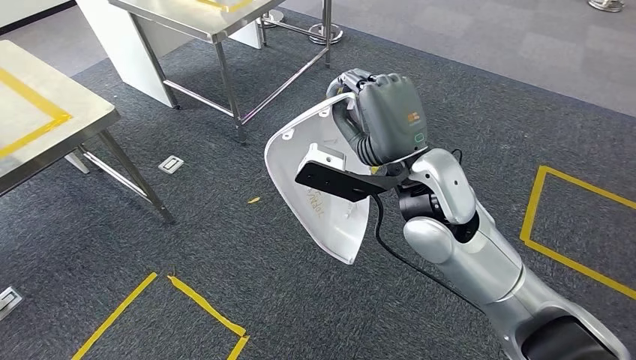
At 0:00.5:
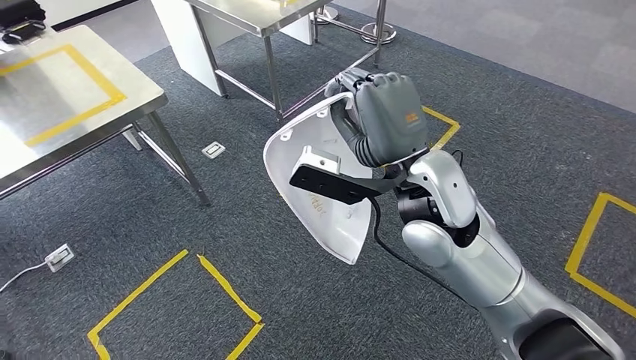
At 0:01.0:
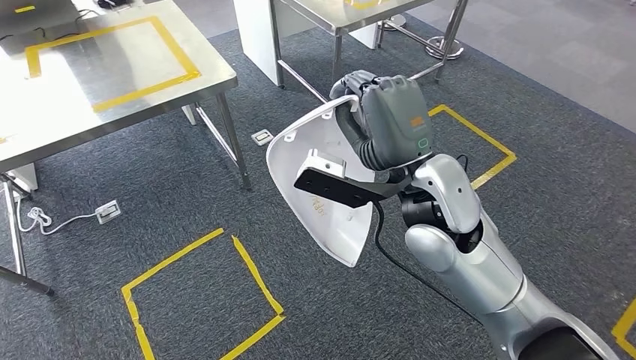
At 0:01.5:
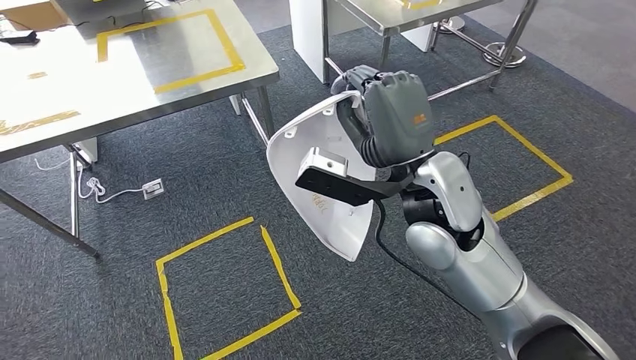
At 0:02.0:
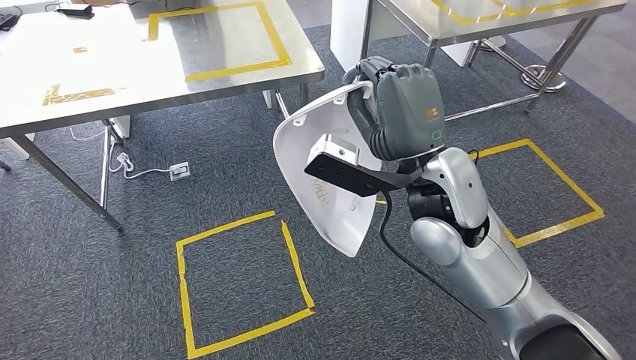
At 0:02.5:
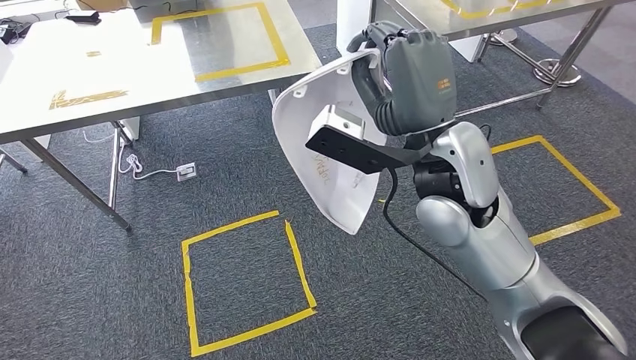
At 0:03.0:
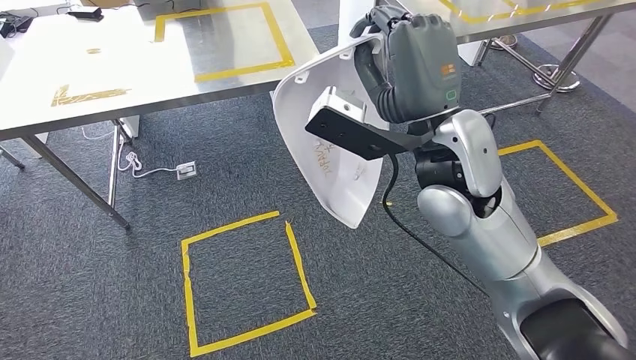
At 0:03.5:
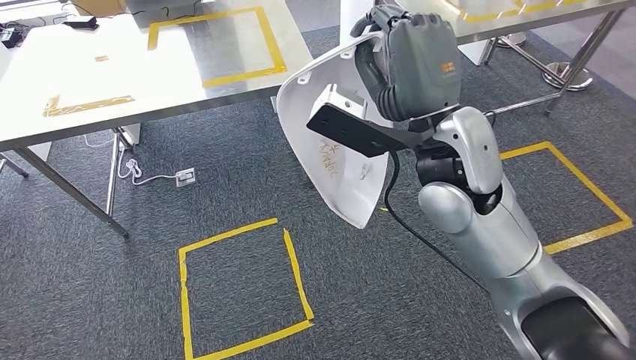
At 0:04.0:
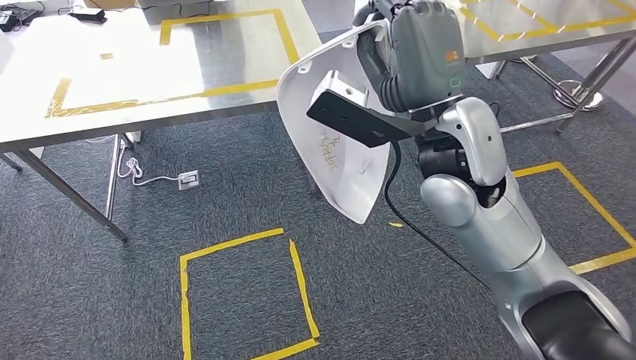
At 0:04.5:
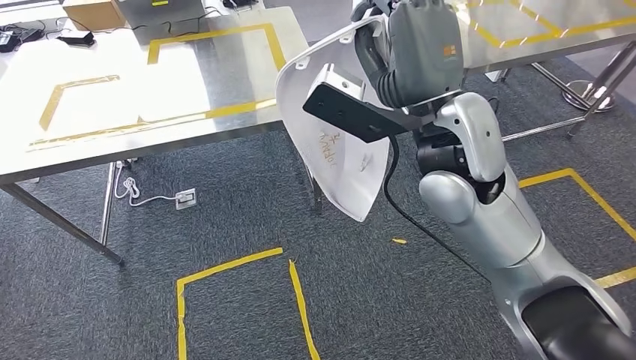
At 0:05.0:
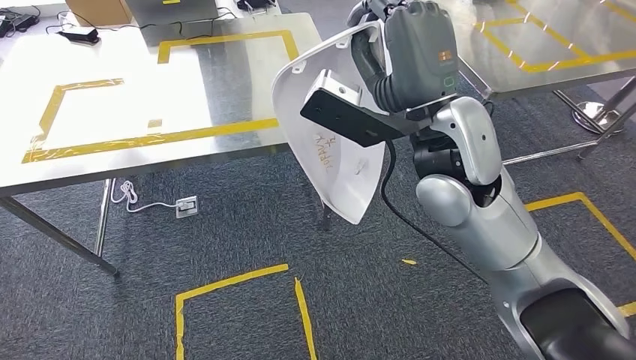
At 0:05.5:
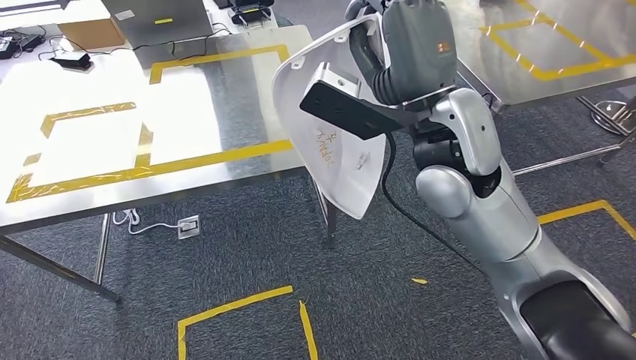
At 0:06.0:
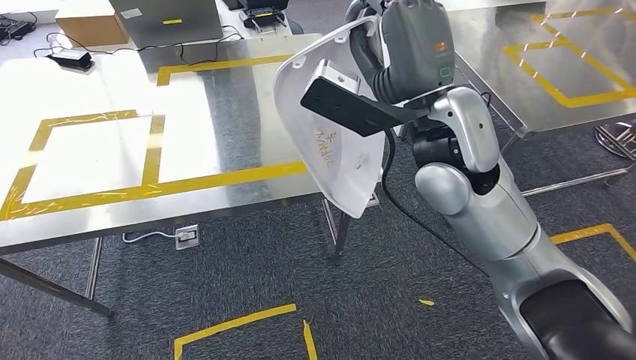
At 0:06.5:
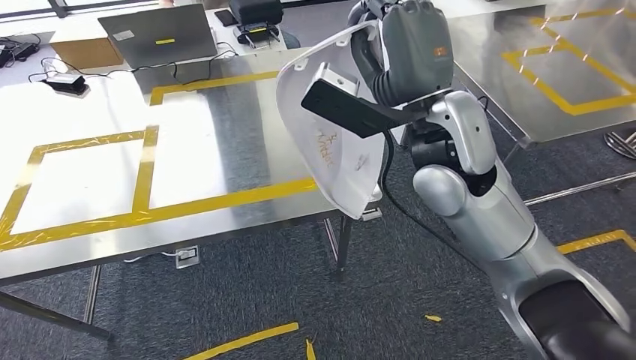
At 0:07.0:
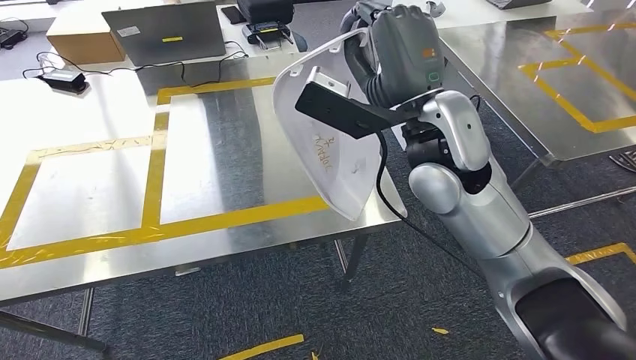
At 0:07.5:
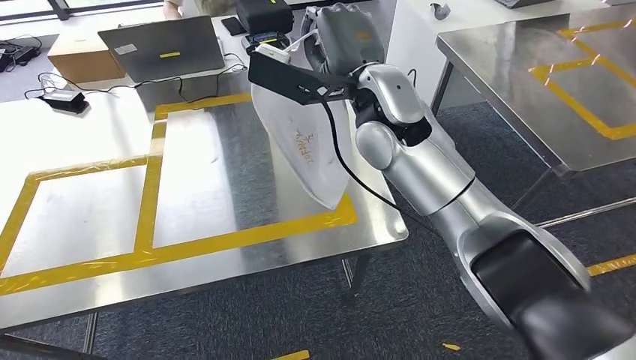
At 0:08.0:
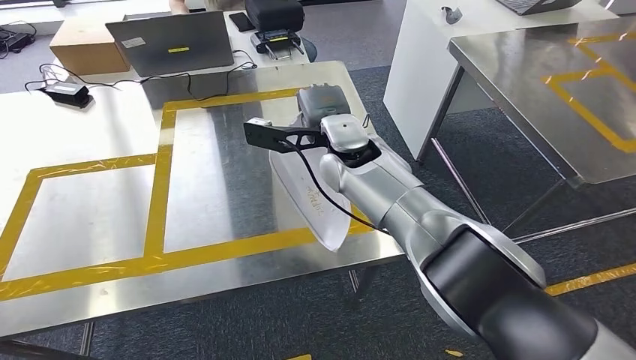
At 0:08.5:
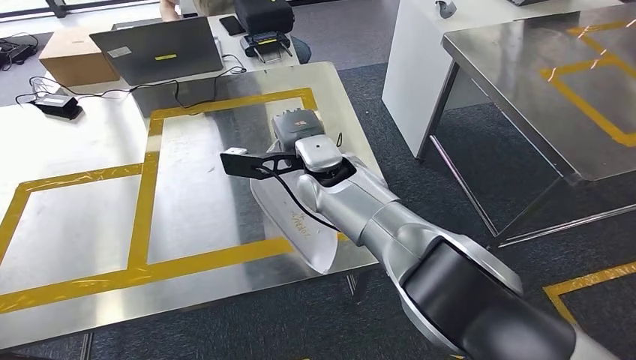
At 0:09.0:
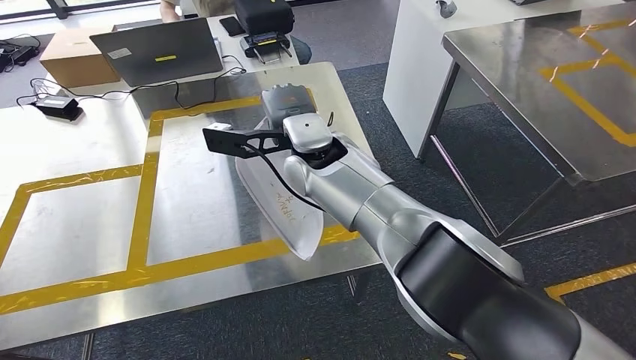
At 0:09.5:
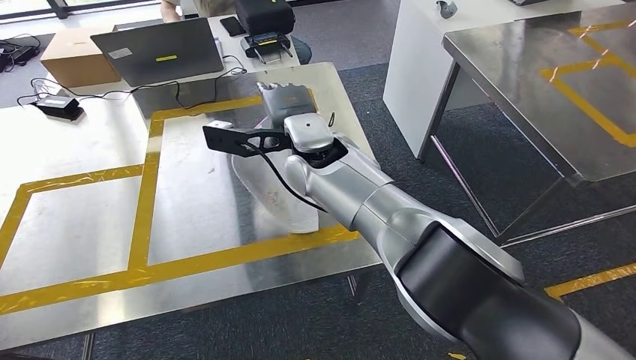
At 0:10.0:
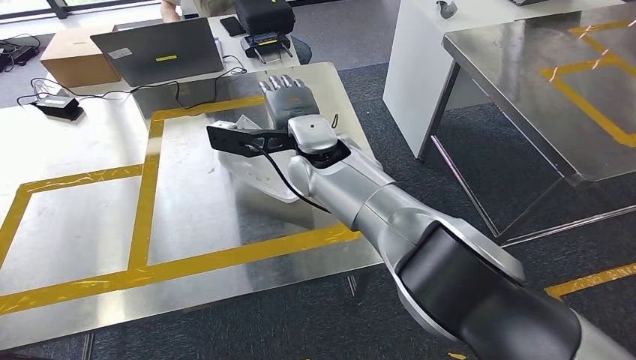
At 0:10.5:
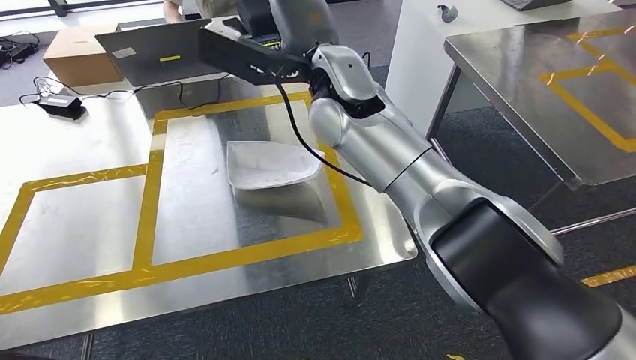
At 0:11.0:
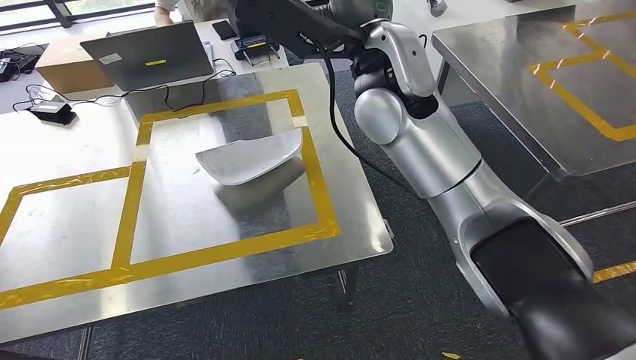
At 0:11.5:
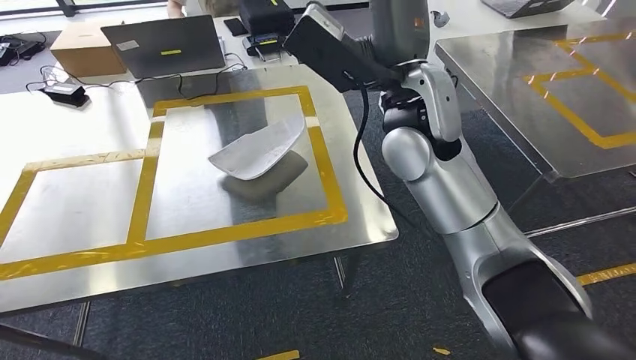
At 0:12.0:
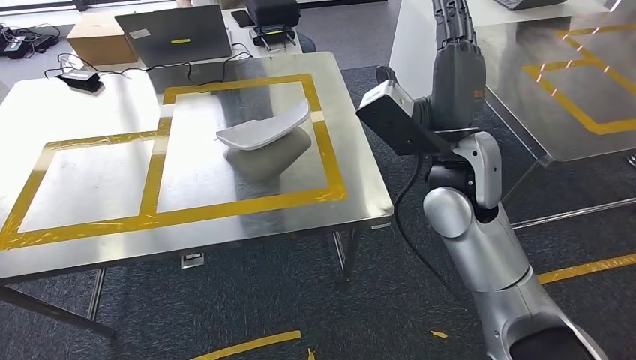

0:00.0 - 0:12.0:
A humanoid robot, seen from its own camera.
Step, 0:00.0 - 0:06.5: Move the small component to the workbench.
Step, 0:07.0 - 0:10.5: Insert the small component into the corresponding slot on the workbench.

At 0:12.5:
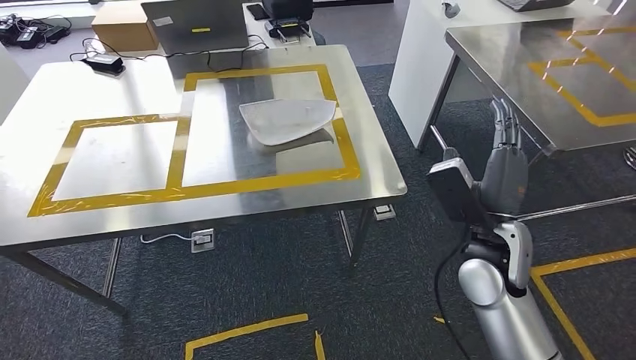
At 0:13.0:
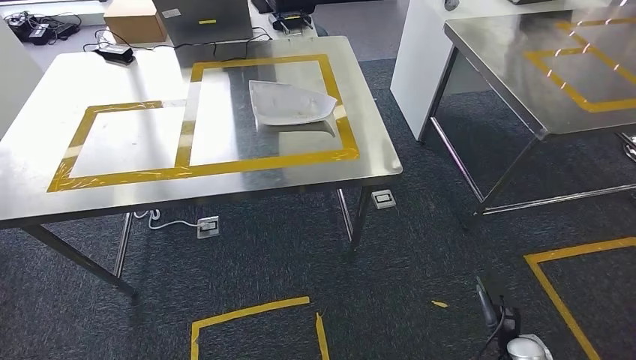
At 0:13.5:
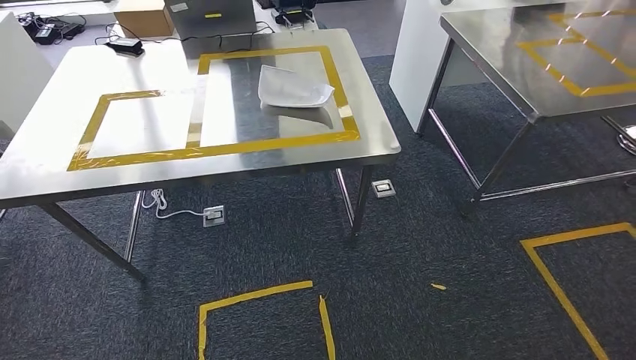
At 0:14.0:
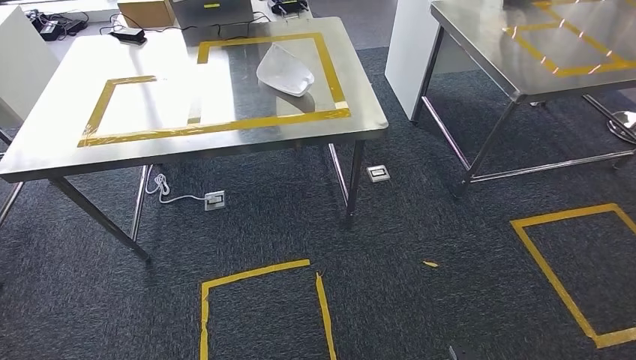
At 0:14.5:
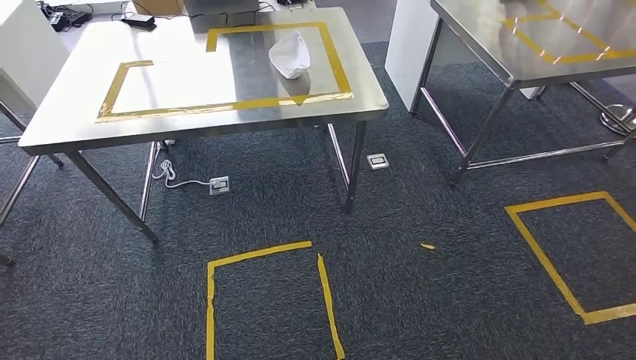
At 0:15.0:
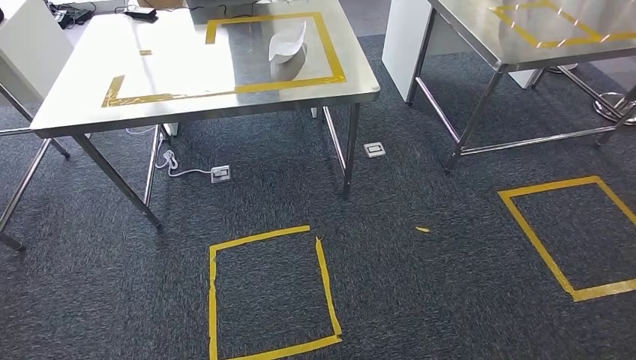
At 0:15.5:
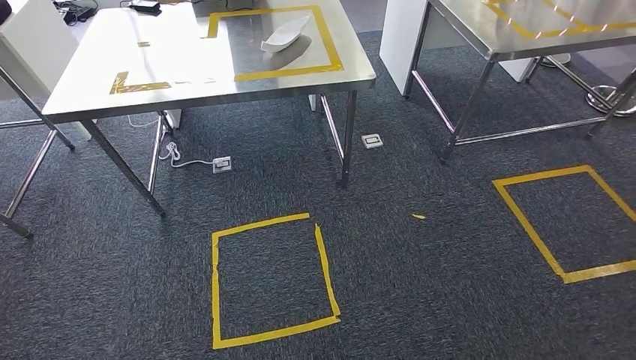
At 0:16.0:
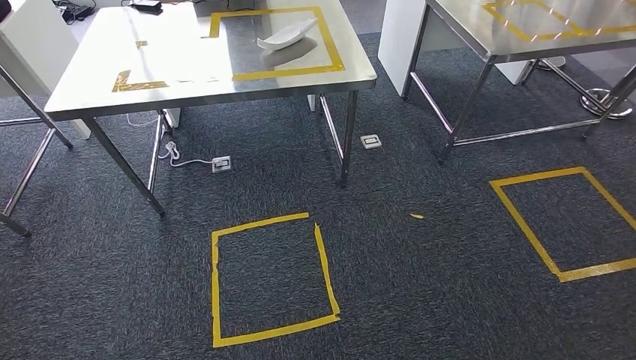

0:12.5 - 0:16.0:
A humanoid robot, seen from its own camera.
Step, 0:12.5 - 0:16.0: Return to the initial position at the workbench.
